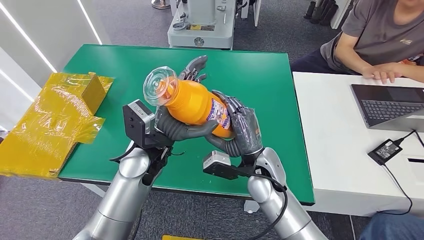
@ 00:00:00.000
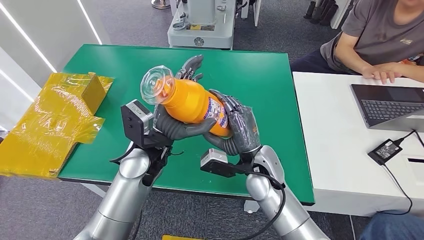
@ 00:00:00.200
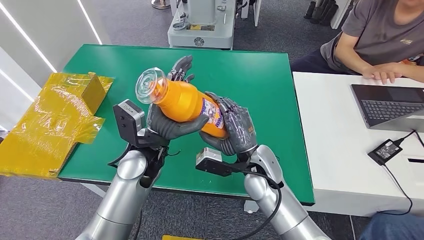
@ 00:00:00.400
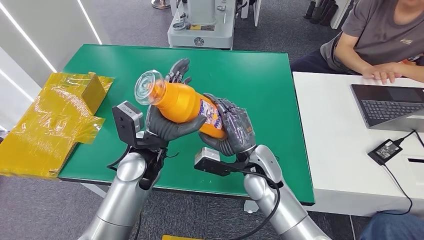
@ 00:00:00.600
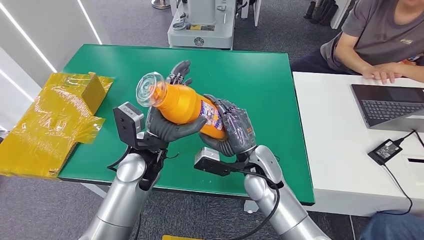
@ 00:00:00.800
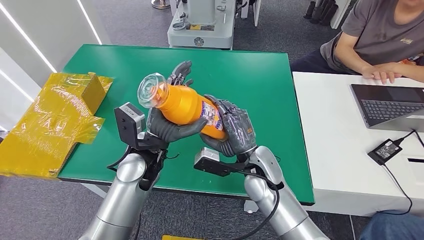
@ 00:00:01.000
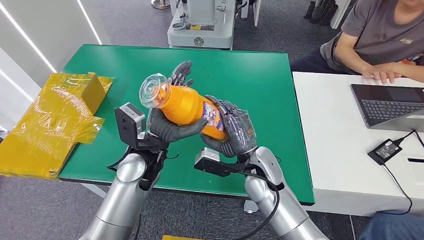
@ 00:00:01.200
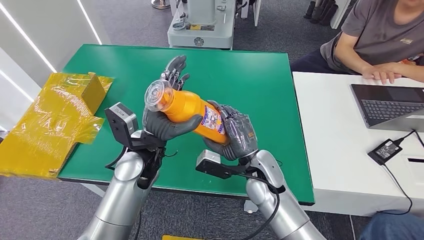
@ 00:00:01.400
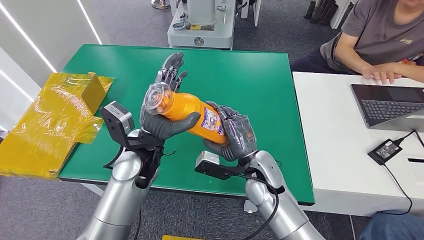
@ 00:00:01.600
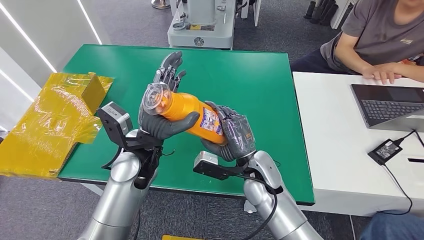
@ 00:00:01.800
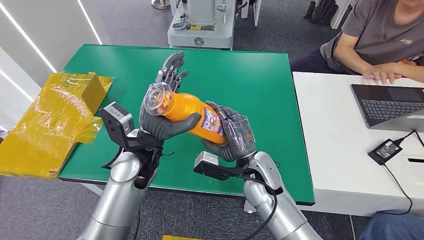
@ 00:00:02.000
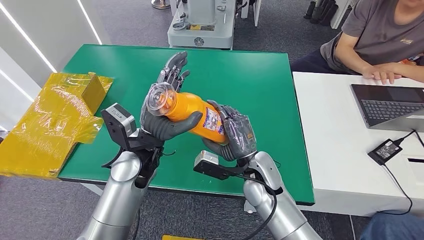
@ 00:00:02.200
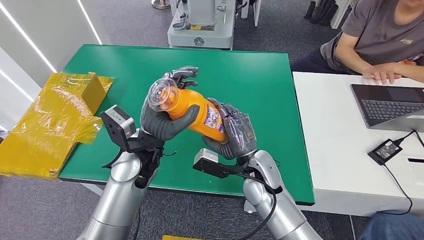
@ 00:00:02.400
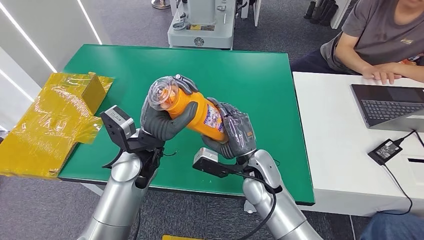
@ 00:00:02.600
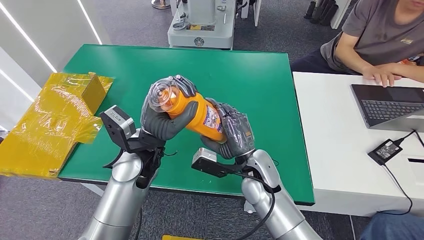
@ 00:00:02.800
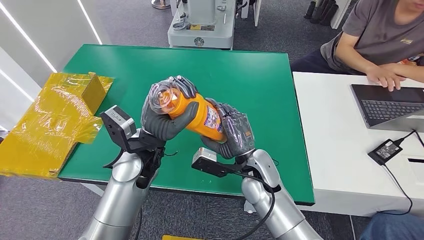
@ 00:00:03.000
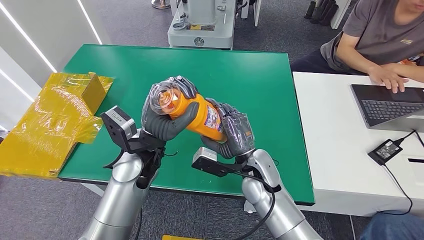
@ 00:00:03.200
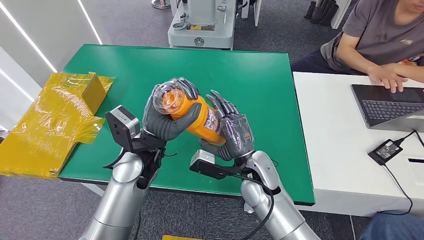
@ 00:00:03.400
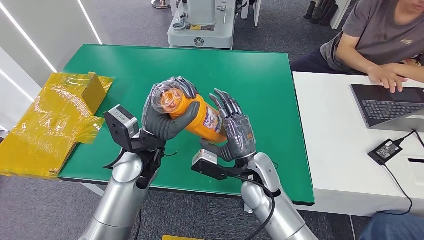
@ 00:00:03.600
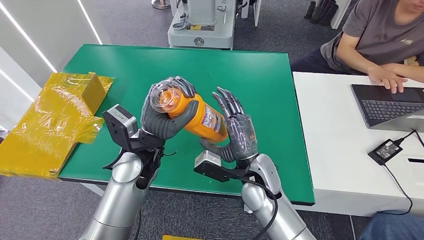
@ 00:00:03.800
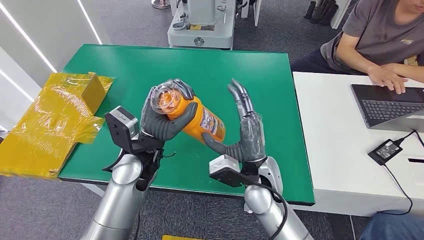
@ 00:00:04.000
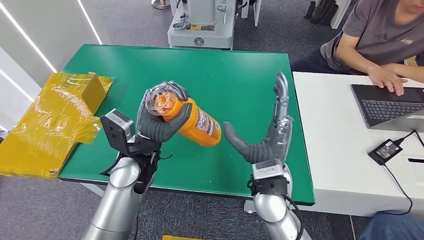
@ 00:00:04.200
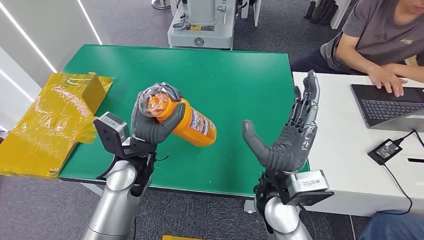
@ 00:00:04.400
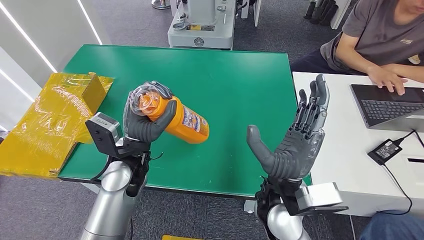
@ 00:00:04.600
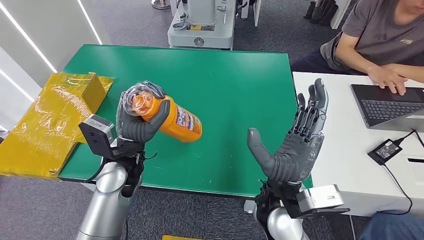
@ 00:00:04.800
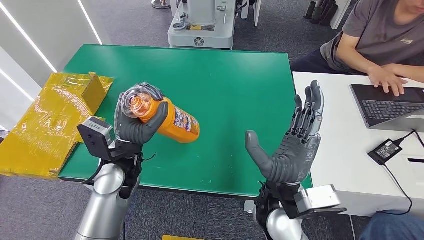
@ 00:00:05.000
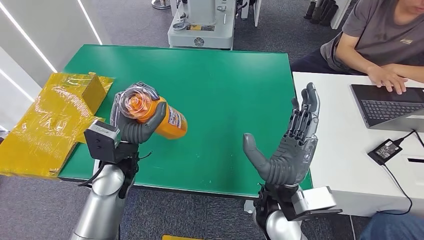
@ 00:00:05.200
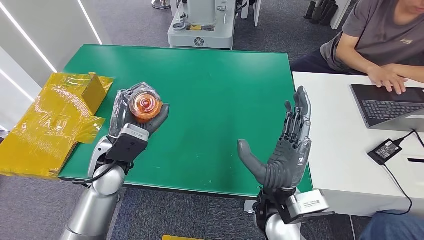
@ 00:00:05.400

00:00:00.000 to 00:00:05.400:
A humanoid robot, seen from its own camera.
Step, 00:00:00.000 to 00:00:05.400: Turn the bottle to the front side.
00:00:00.000 to 00:00:01.400: There are only small adjustments of the hands.
00:00:01.400 to 00:00:02.800: Both hands stay put.
00:00:04.000 to 00:00:05.400: The left hand moves to the left, some 10 cm; the right hand is displaced backward by some 5 cm.
